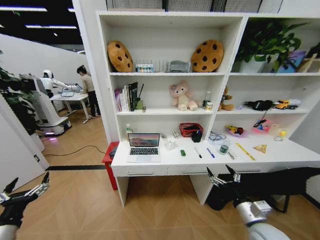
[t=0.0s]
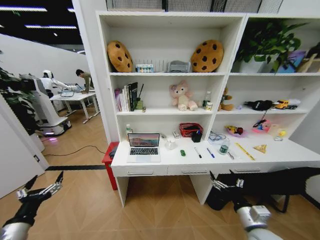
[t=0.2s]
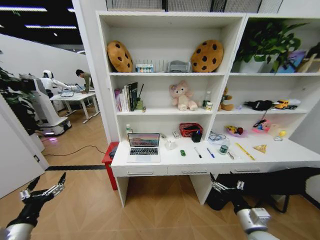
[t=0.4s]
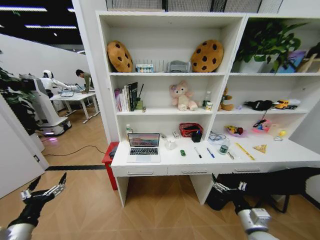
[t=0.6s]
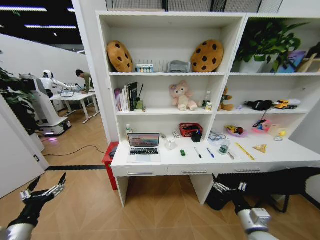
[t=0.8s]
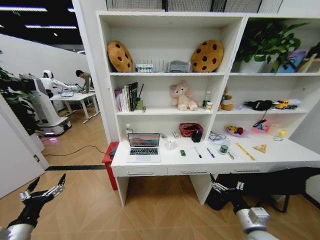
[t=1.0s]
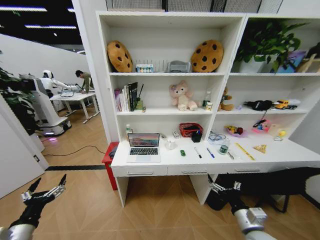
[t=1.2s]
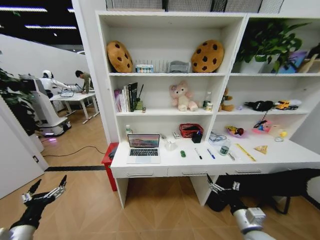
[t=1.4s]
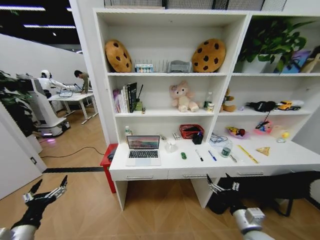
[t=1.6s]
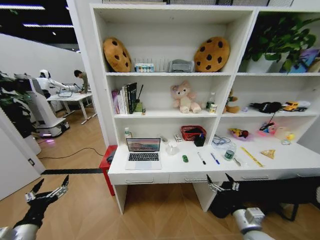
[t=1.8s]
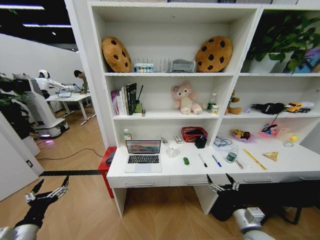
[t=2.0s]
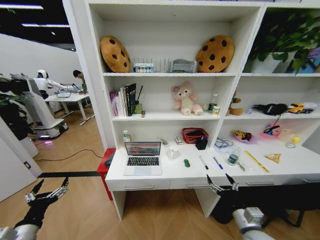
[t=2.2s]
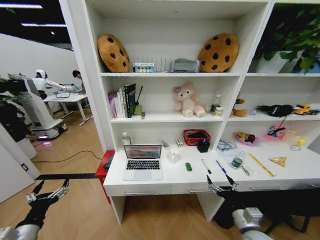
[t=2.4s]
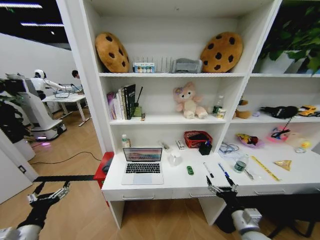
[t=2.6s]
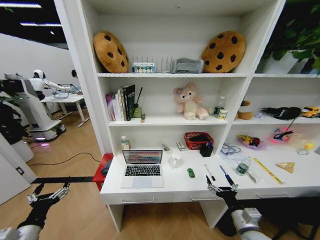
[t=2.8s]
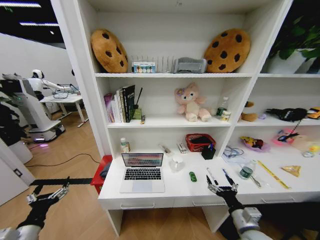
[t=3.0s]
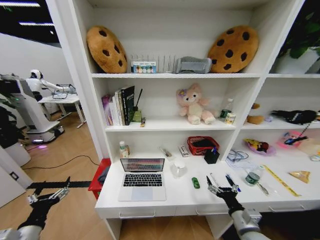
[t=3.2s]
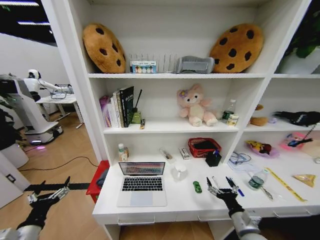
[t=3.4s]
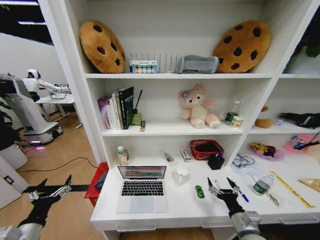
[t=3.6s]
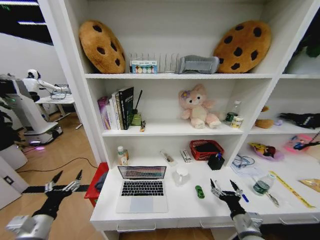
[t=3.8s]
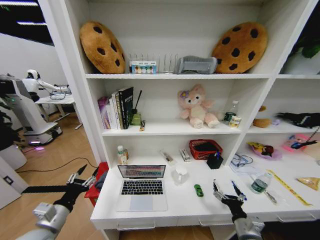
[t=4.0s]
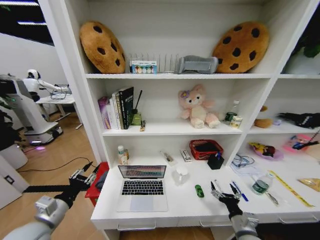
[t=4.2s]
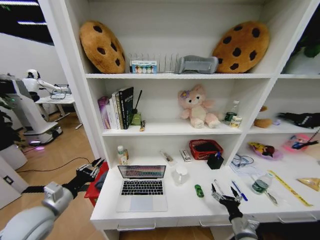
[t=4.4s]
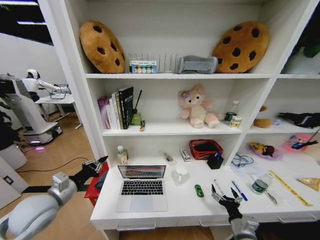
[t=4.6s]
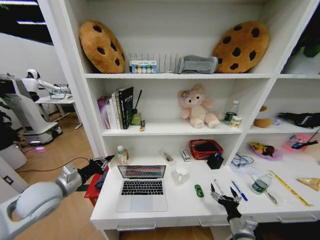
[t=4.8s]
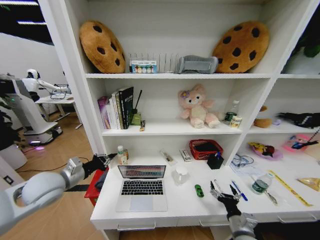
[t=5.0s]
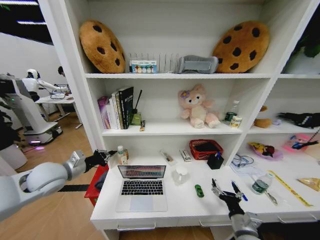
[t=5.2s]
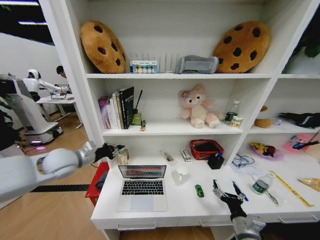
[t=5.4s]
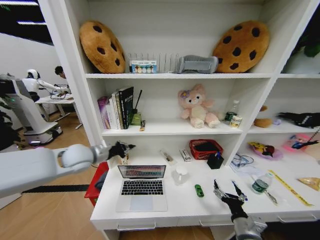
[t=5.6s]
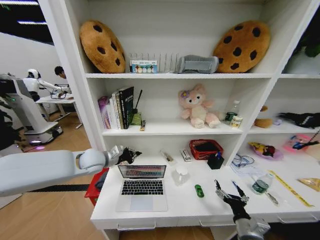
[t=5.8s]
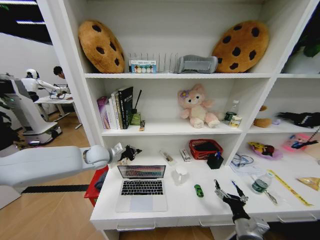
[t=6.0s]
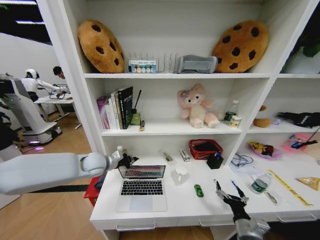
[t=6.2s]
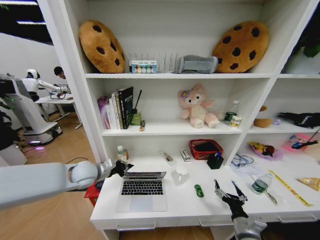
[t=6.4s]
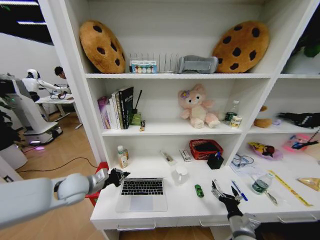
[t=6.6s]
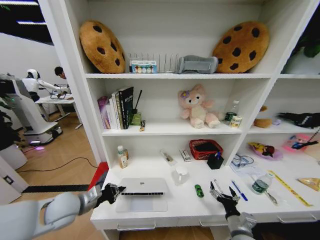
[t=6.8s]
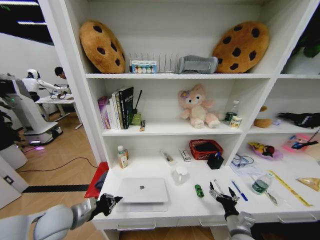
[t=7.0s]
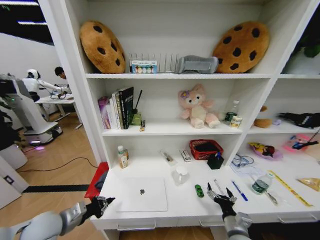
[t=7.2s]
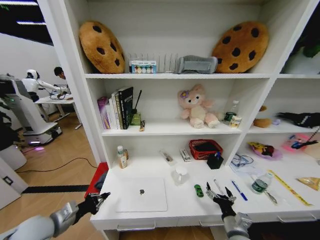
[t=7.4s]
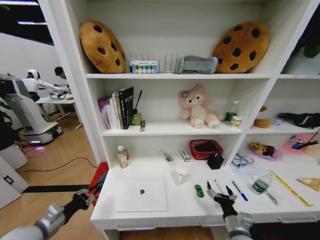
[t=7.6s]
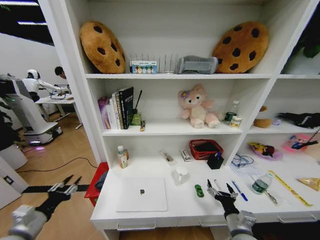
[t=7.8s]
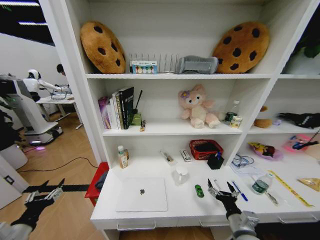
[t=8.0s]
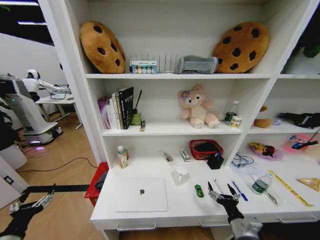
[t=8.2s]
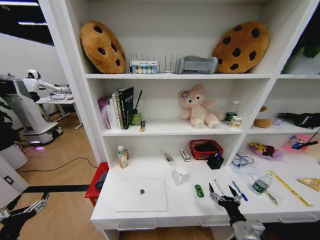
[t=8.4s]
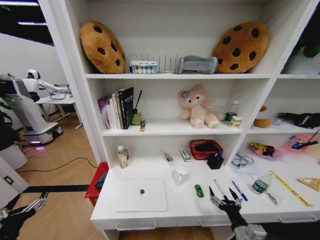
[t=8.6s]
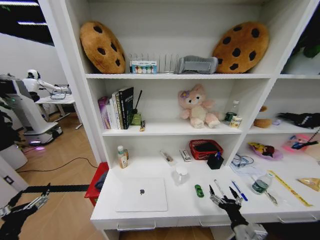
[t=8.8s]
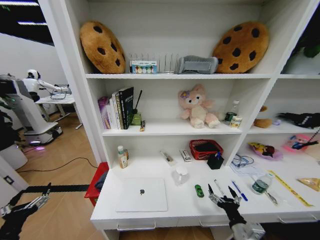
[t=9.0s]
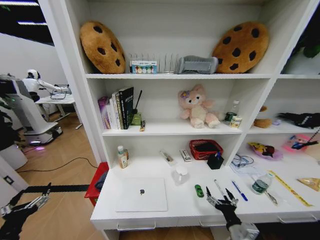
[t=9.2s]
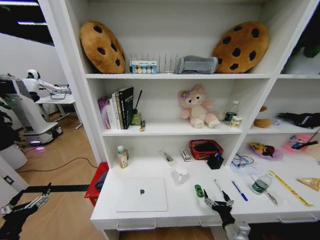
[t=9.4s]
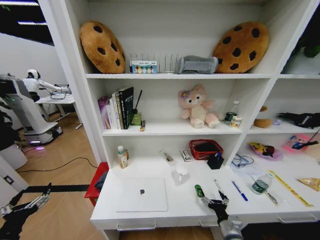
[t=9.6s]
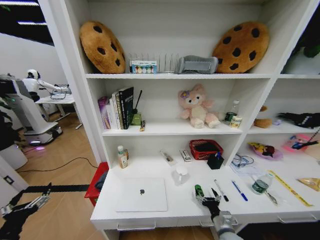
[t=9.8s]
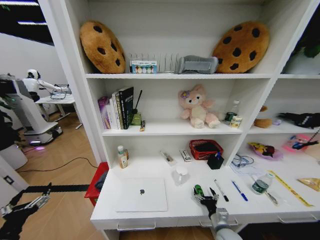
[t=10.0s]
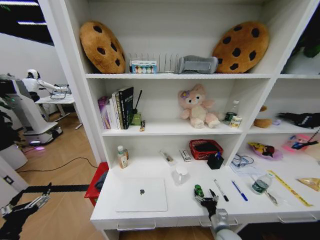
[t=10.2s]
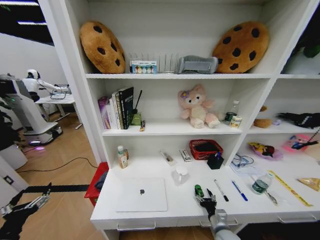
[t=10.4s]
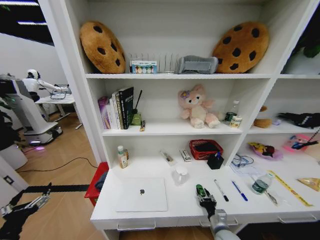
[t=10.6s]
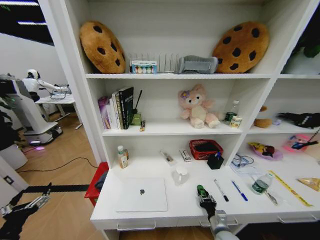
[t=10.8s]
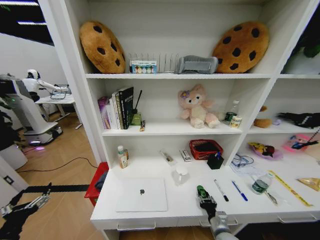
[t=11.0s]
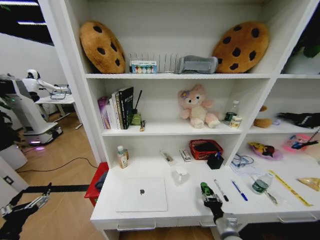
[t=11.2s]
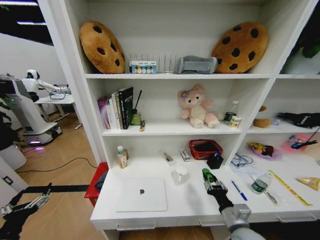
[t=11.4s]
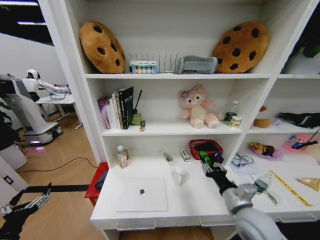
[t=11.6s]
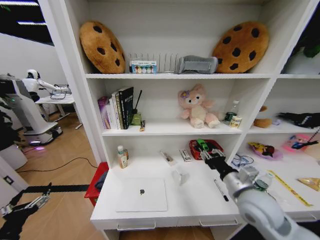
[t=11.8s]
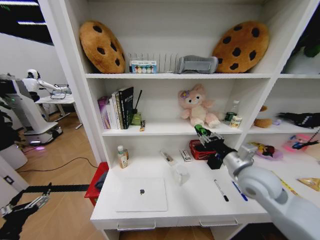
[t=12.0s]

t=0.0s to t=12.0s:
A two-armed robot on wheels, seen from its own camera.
Task of the whole recording: Organize the objects on the table.
t=3.0s to t=4.4s: The left gripper moves forward and upward, roughly 10 cm, and closes up; the right gripper heads downward, covering some 5 cm.
t=4.4s to t=6.0s: The left gripper shifts approximately 25 cm forward and to the right.
t=6.0s to t=7.6s: The left gripper shifts roughly 30 cm backward and to the left.
t=7.6s to t=9.0s: The left gripper goes some 10 cm backward and to the left, and opens.
t=9.0s to t=10.4s: The right gripper heads downward and forward, covering about 10 cm.
t=10.4s to t=12.0s: The right gripper goes about 35 cm upward, and closes its fingers.

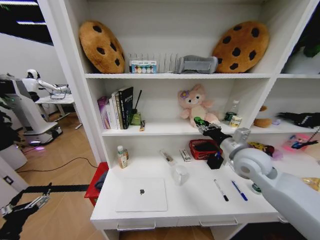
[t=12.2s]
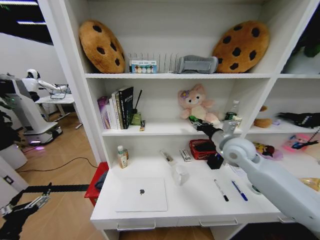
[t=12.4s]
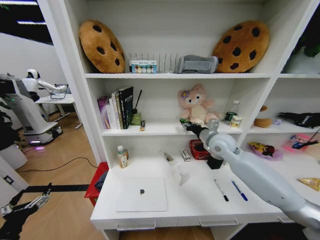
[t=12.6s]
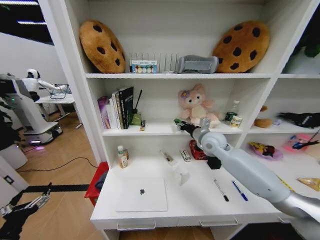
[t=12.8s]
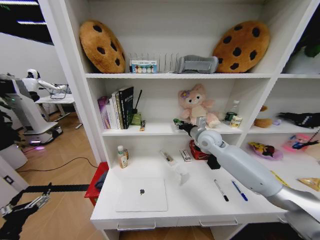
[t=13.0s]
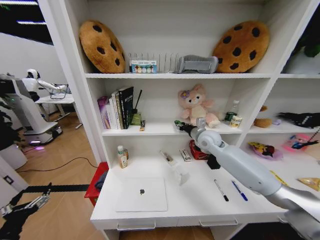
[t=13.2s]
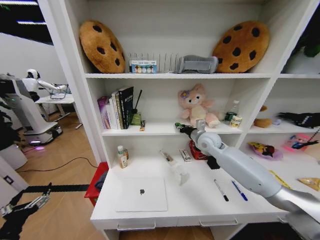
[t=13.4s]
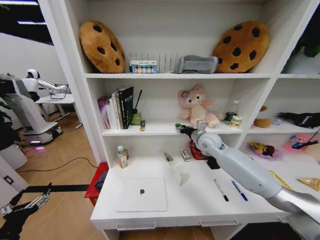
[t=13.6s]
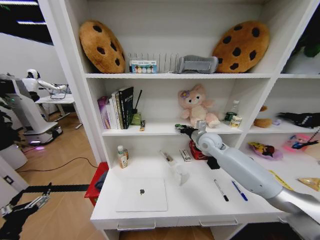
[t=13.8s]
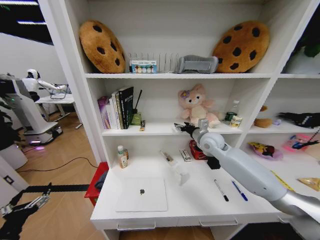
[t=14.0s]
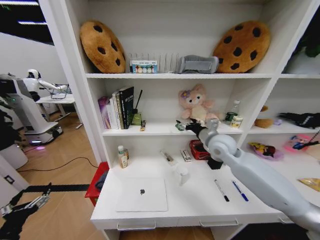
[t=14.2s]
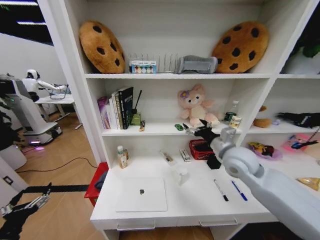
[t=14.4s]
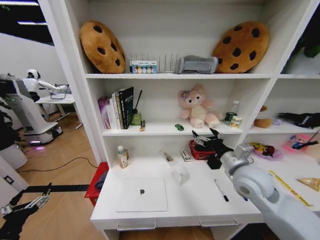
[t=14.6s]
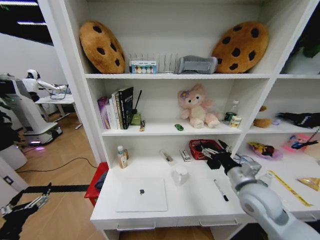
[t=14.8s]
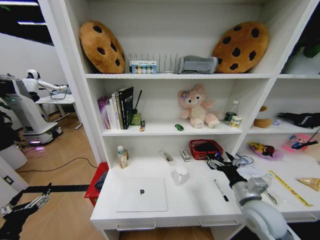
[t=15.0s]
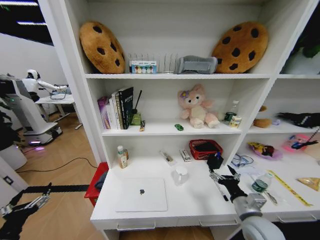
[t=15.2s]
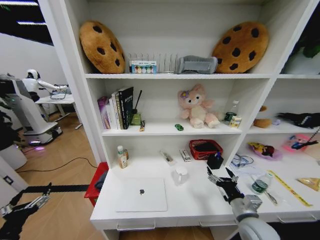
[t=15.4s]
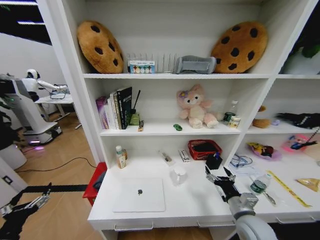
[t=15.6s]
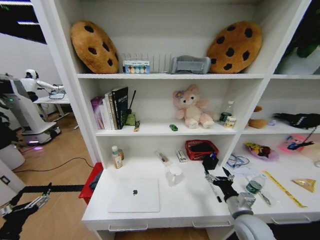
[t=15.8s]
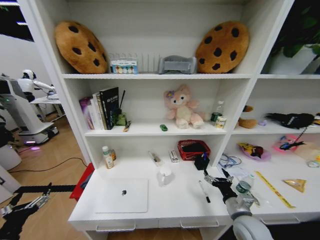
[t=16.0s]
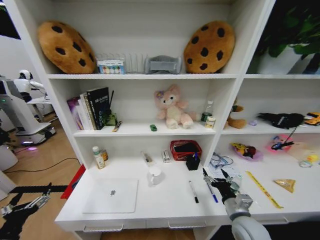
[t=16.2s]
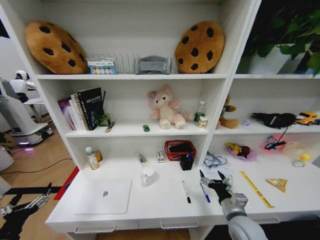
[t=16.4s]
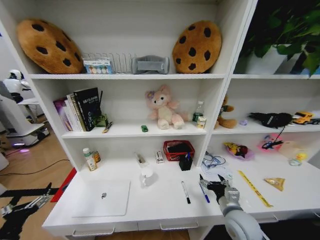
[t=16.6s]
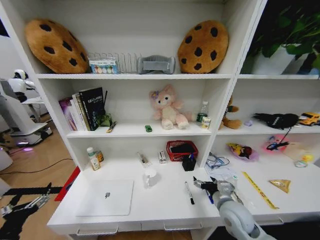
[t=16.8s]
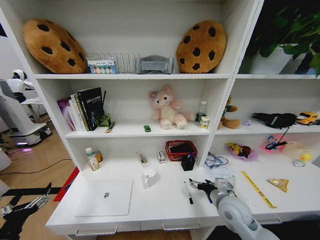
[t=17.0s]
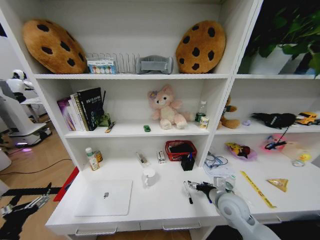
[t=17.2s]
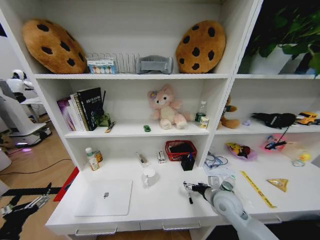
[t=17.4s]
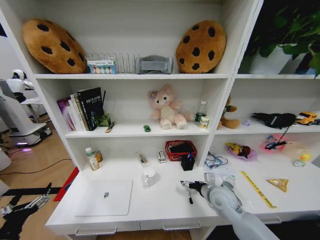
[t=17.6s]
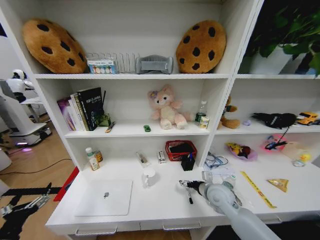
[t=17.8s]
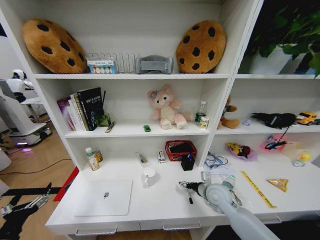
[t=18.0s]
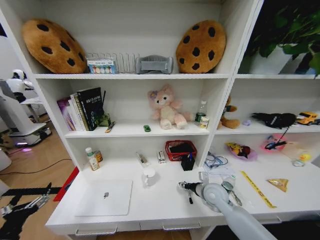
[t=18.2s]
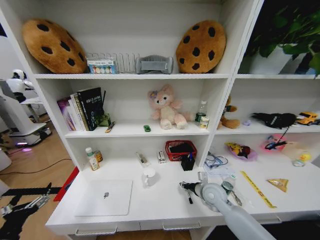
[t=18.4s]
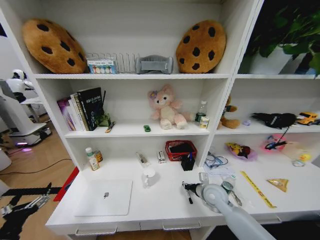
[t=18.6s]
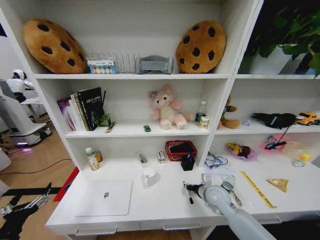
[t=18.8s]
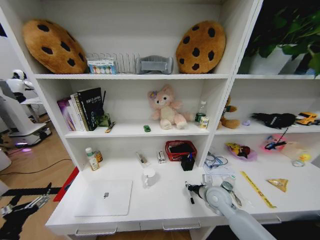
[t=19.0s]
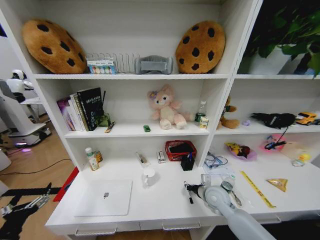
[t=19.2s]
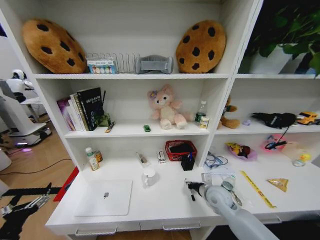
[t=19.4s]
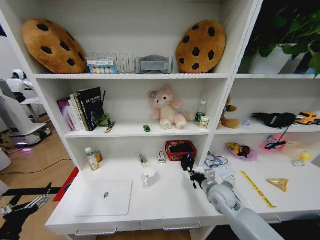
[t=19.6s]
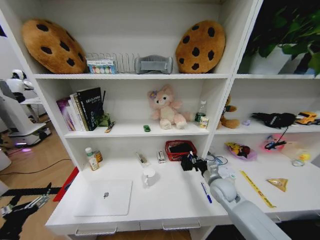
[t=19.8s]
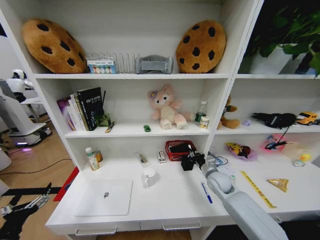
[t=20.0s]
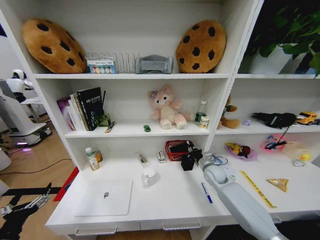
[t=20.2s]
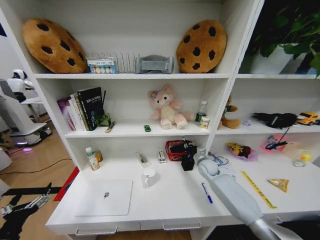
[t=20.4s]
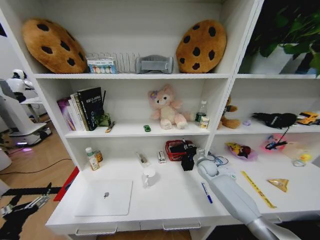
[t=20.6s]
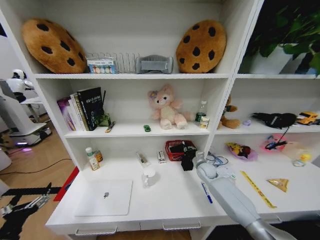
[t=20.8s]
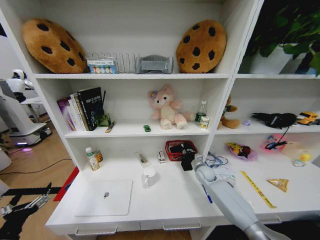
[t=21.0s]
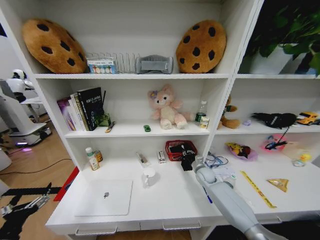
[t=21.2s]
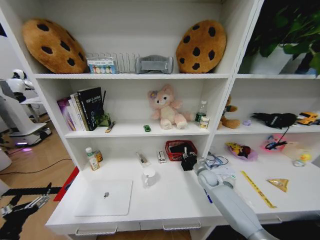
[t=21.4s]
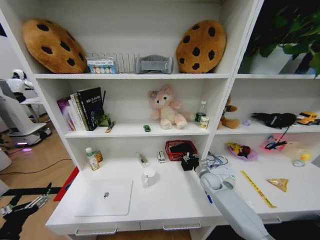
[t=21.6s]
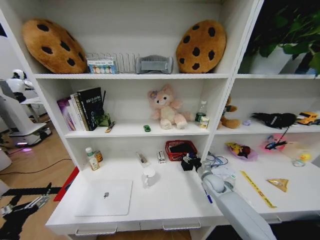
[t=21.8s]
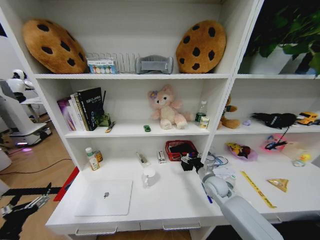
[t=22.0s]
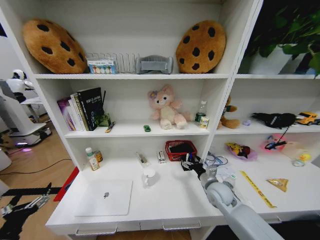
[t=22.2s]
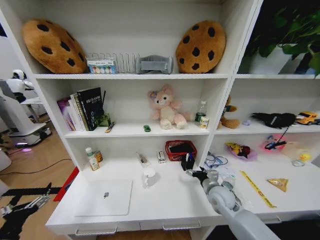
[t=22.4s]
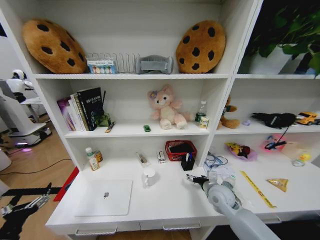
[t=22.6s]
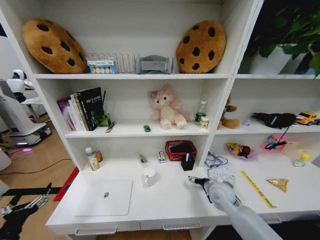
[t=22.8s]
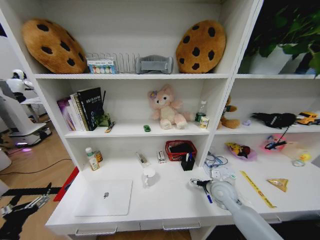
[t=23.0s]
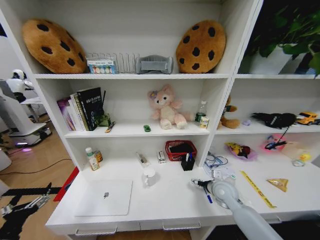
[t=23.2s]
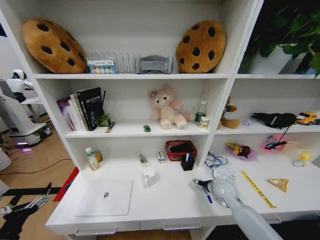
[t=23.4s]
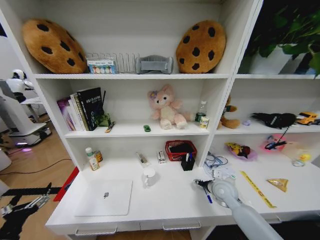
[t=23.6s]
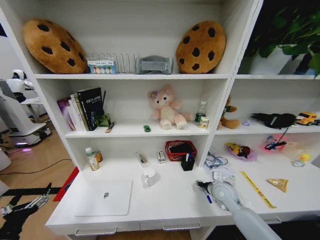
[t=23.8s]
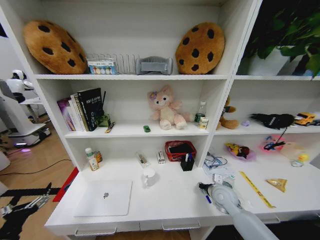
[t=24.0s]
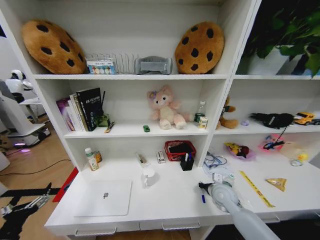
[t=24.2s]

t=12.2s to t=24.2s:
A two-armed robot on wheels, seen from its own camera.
Task of the whole recording: Organize the objects on the table.
t=12.2s to t=13.8s: The right gripper goes about 15 cm forward.
t=13.8s to t=15.2s: The right gripper shifts approximately 30 cm backward and downward, and opens its fingers.
t=15.2s to t=16.6s: The right gripper shifts by about 5 cm.
t=16.6s to t=18.2s: The right gripper goes some 10 cm forward, and closes its fingers.
t=18.2s to t=19.8s: The right gripper closes its fingers.
t=19.8s to t=21.2s: The right gripper is displaced forward and downward by roughly 15 cm.
t=21.2s to t=22.6s: The right gripper goes some 15 cm backward and upward, and opens its fingers.
t=22.6s to t=24.2s: The right gripper closes.
